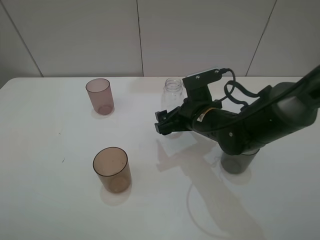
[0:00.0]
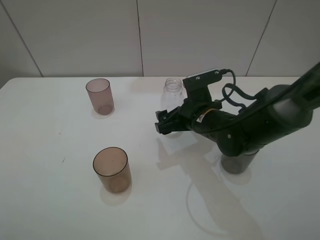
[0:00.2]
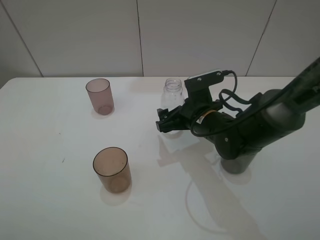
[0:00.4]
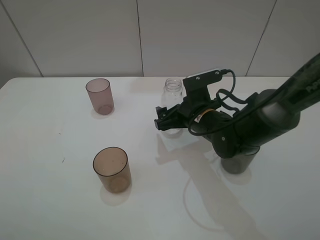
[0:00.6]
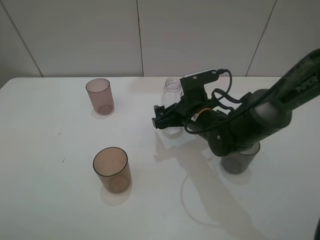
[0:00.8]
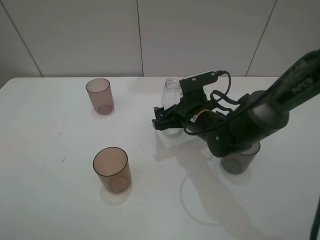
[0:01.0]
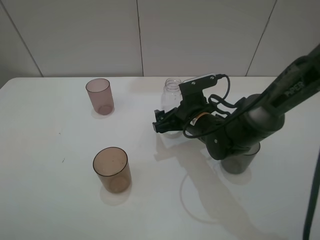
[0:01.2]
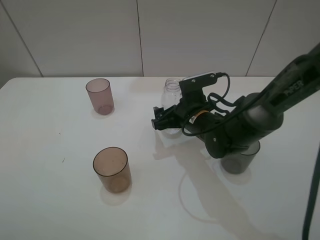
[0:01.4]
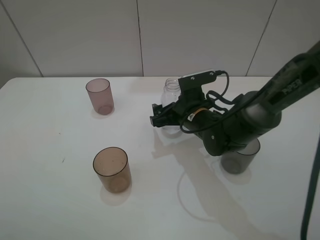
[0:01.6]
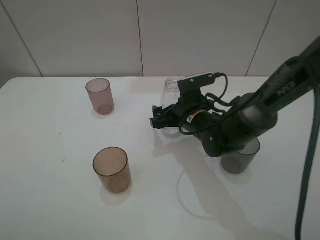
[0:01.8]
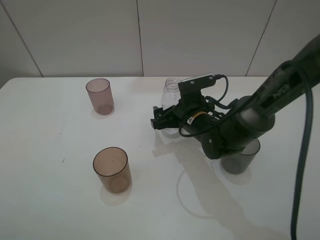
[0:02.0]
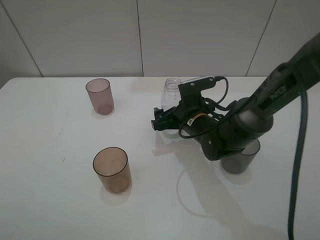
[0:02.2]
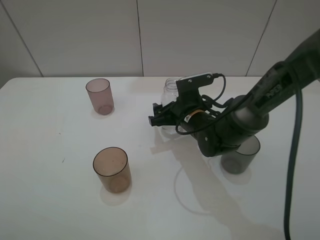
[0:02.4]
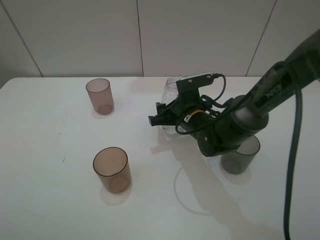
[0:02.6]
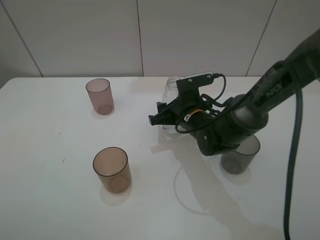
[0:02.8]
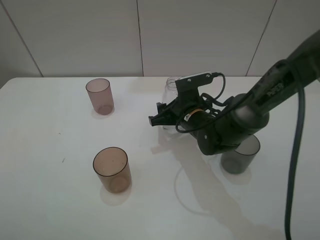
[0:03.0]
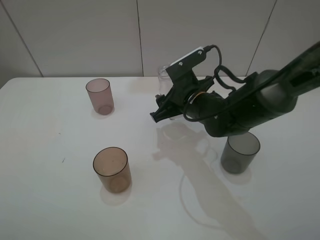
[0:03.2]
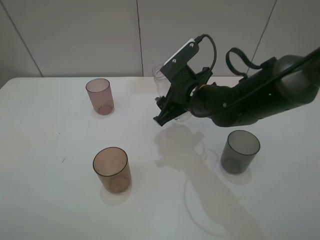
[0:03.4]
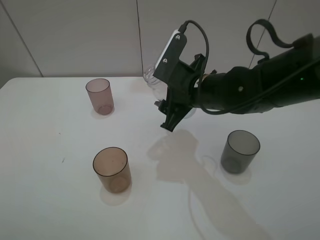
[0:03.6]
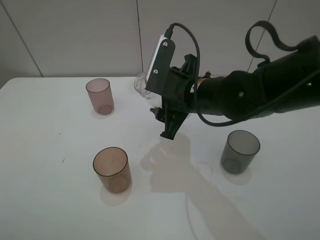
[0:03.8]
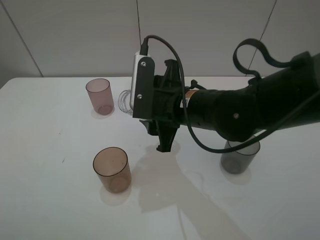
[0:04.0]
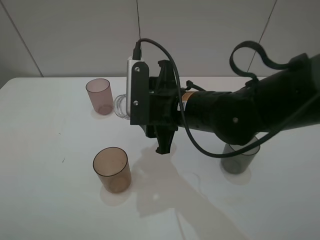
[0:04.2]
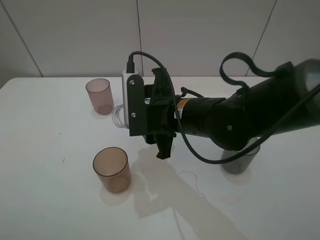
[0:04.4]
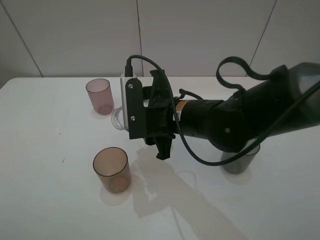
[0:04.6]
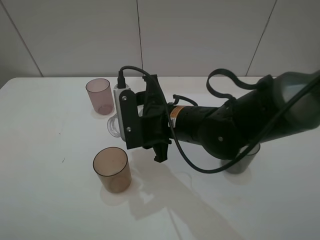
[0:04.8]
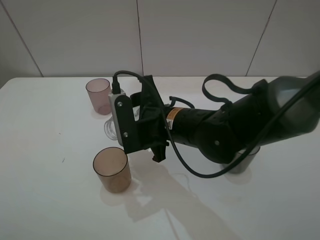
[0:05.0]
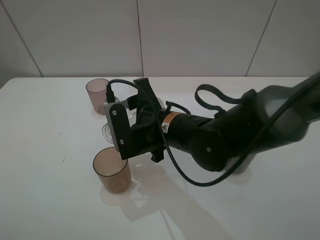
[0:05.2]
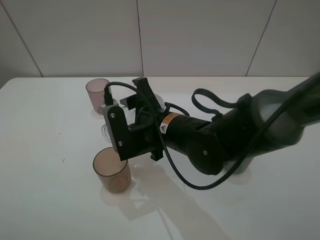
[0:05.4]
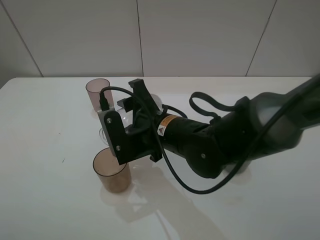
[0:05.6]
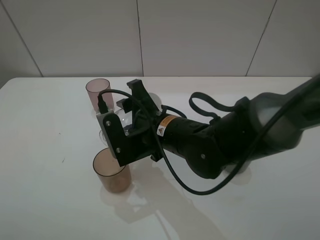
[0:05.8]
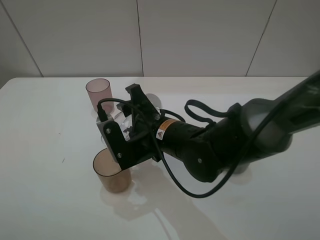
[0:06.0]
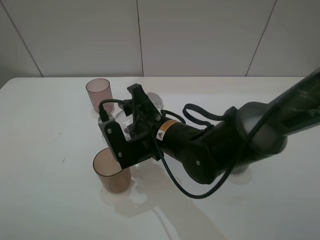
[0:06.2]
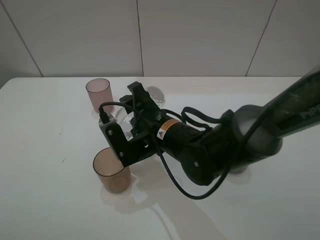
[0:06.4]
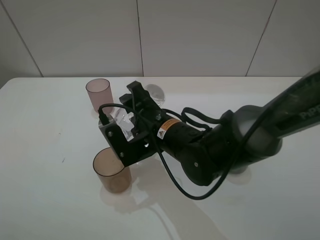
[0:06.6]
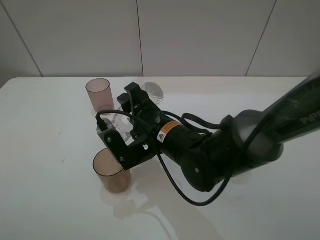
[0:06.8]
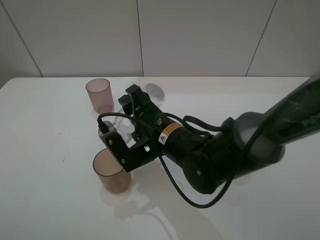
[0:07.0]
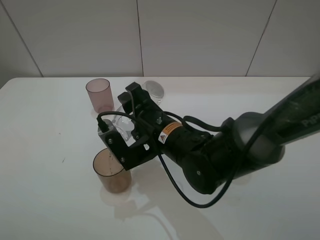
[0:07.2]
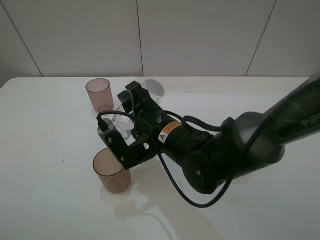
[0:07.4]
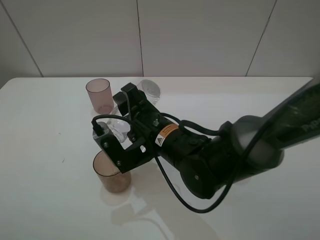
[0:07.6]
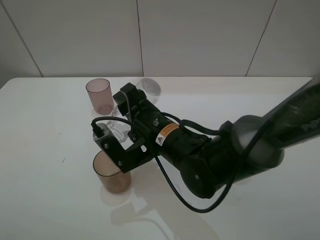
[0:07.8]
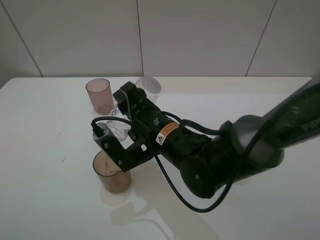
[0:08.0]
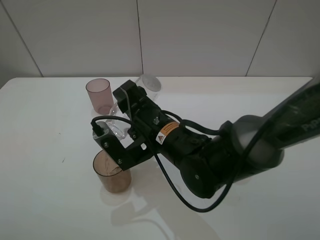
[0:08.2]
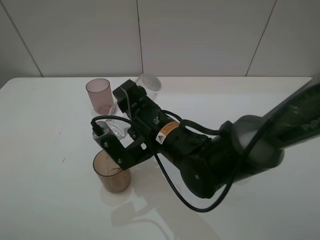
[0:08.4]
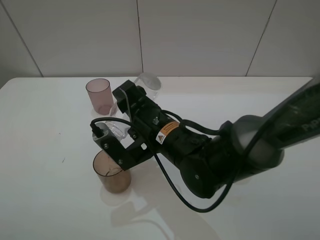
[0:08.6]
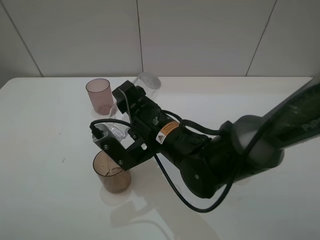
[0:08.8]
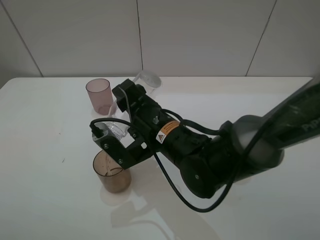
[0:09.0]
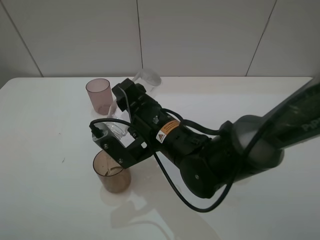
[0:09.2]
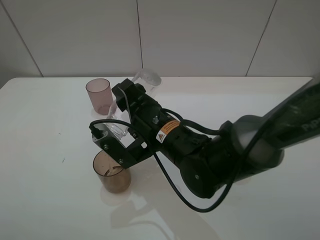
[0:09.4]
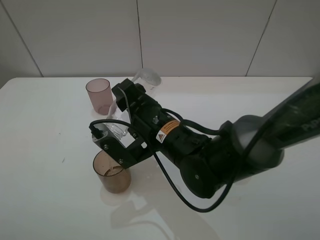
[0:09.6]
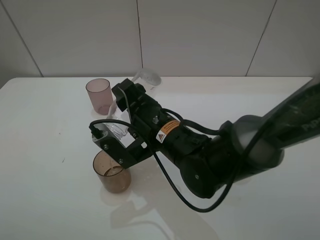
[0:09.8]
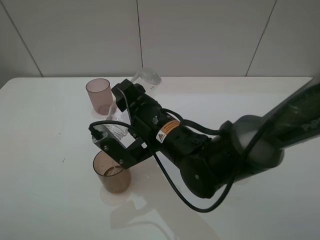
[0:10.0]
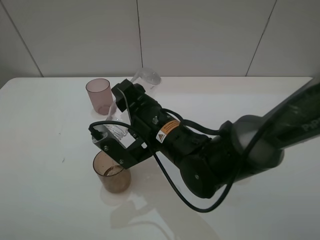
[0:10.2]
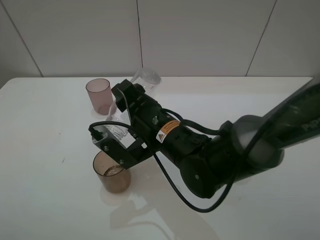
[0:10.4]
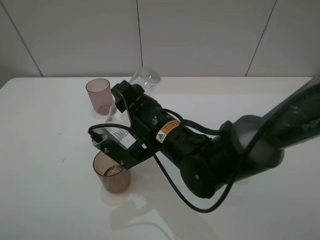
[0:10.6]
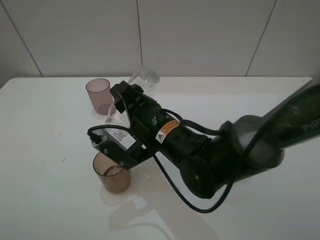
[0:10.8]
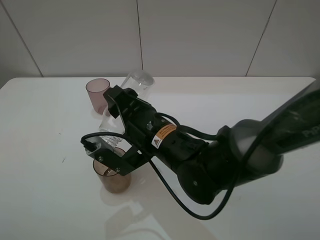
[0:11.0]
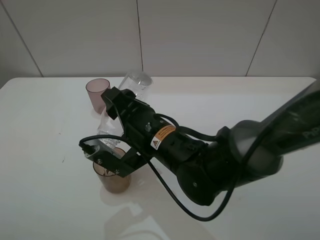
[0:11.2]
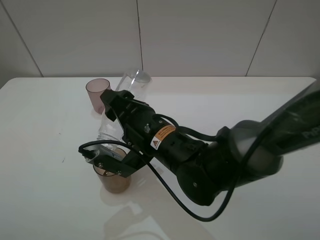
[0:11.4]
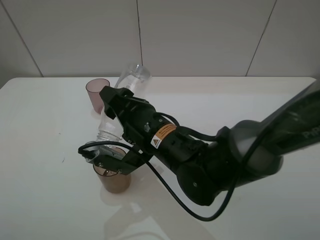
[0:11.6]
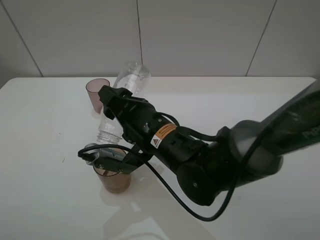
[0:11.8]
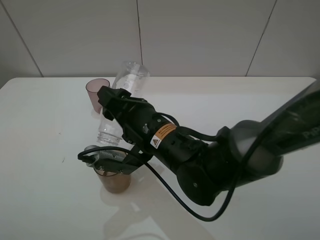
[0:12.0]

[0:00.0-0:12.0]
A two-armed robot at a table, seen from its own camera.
Task of the whole recording: pick up the bottle filled with water and pour water into the middle cup of the three cups.
Step, 0:00.0 to 0:02.6: Grasp the transparent bottle with the right gripper.
Step, 0:02.8 to 0:07.8: Pour water from transparent bottle tobrown cup with the right gripper.
0:00.0 to 0:01.6: The grippers stay close to where they were, moving slightly.
0:01.6 to 0:03.0: The right gripper closes.
0:03.0 to 0:04.4: The right gripper shifts approximately 10 cm upward and backward.
0:06.0 to 0:07.6: The grippers make only small movements.
0:07.6 to 0:09.0: There are only small adjustments of the grippers.
0:09.0 to 0:10.4: Neither gripper changes place.
0:10.4 to 0:12.0: The grippers move only a little.

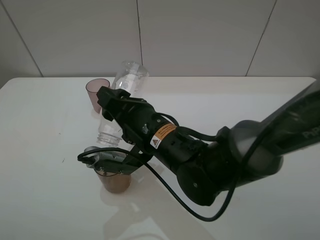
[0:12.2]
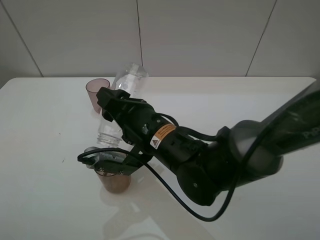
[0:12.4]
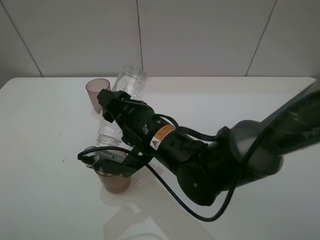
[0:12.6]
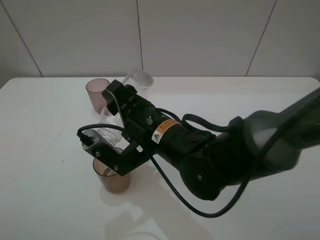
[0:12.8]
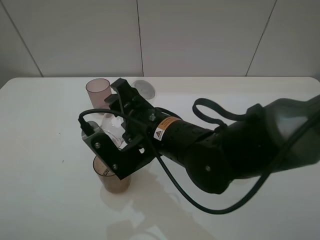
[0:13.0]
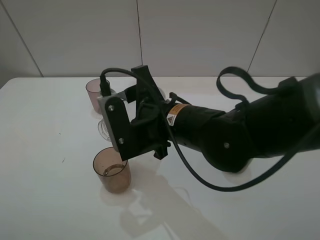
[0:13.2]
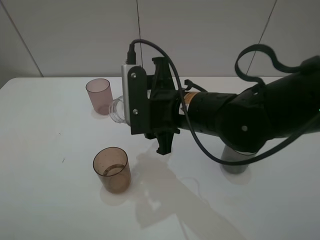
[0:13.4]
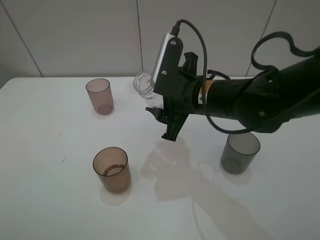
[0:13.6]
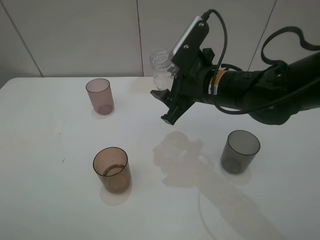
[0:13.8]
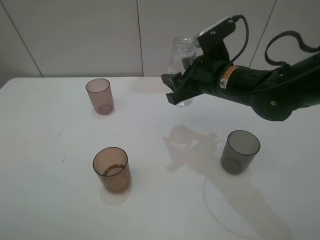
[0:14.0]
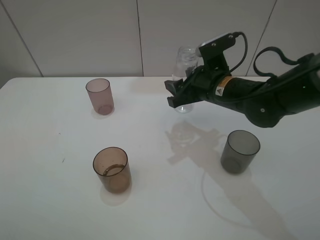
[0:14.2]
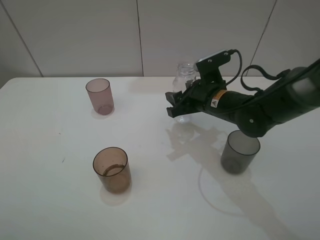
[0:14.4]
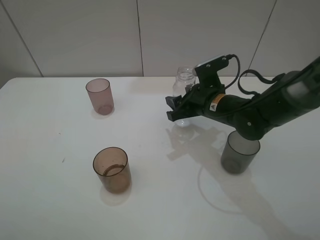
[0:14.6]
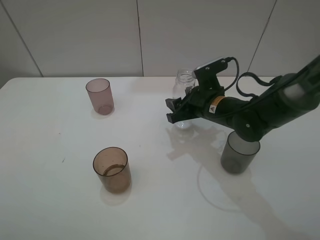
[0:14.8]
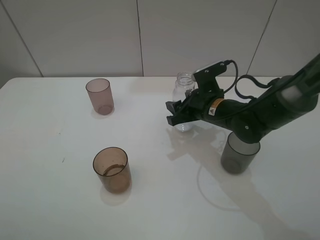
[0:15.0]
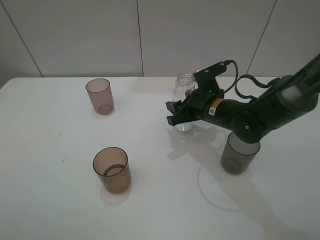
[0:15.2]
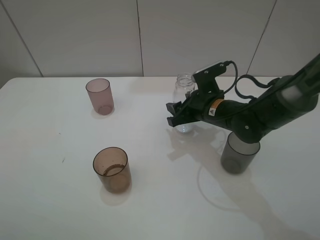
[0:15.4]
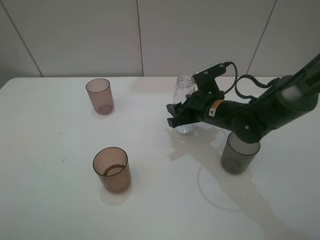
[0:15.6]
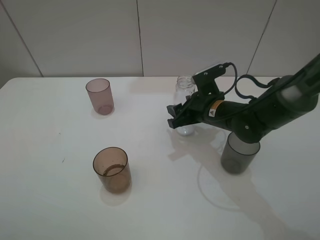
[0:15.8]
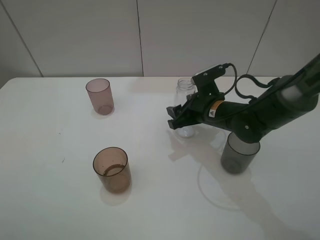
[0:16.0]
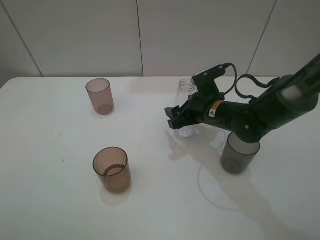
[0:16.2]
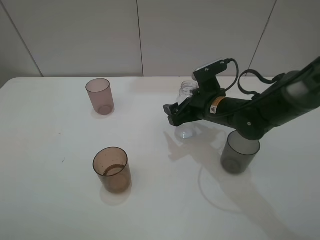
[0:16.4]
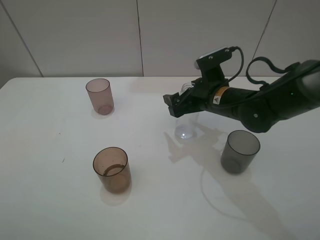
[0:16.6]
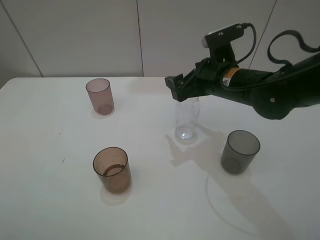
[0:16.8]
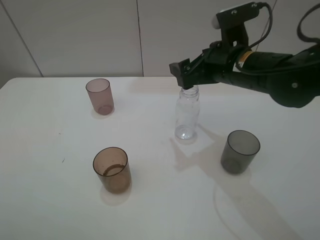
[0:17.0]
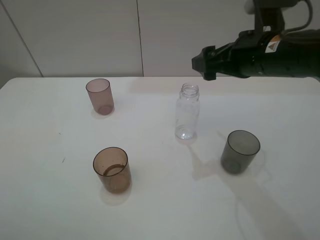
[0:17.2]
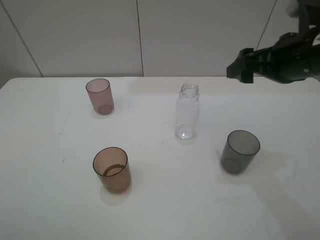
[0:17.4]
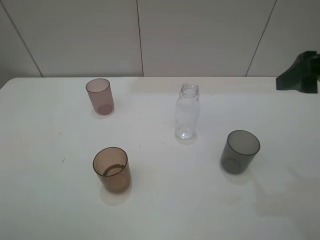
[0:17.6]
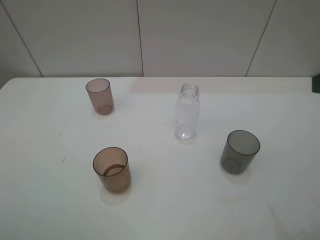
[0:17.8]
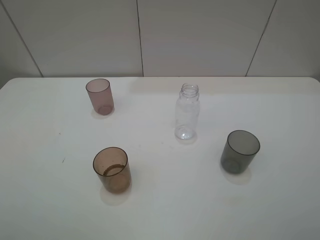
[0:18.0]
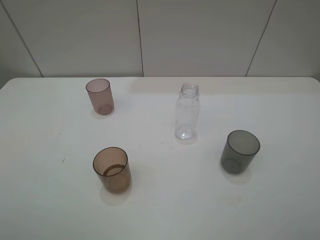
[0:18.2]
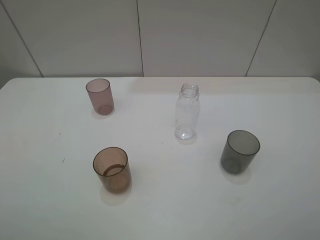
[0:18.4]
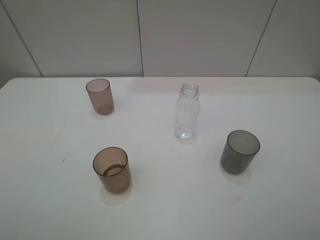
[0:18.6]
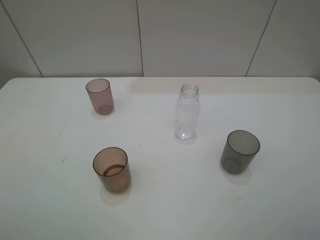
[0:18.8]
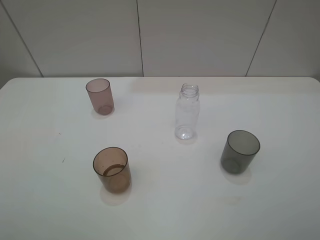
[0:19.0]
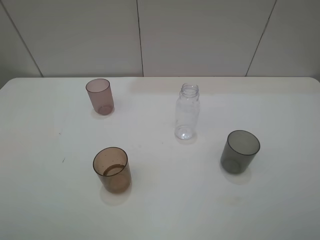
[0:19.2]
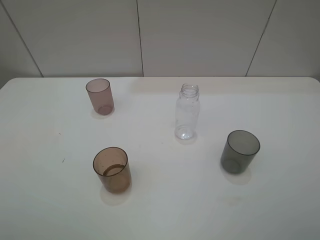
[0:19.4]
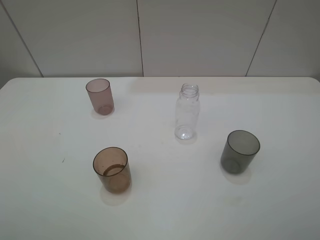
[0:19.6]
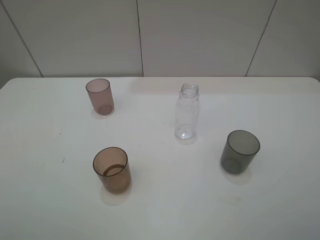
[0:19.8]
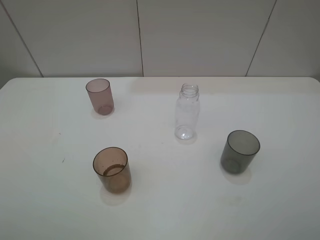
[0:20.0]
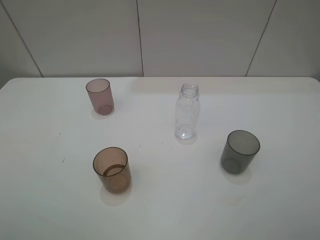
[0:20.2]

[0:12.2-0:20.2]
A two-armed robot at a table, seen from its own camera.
Task of the whole recording: pick up the bottle filled with water and pour water into the middle cup of the three cups.
Step, 0:12.2 to 0:16.8: Place the transparent bottle with the right gripper.
0:12.2 to 0:13.8: The right gripper shifts about 15 cm to the right and forward.
0:13.8 to 0:15.4: The right gripper moves downward, about 10 cm.
0:15.4 to 0:17.0: The right gripper is displaced upward by some 10 cm, and opens.
0:17.0 to 0:18.6: The right gripper travels backward and to the right by some 35 cm.
0:18.6 to 0:20.2: The two grippers keep their place.
